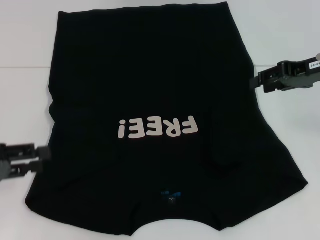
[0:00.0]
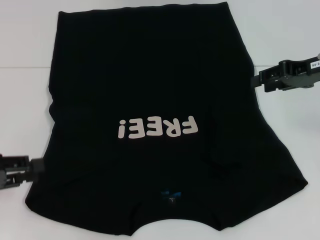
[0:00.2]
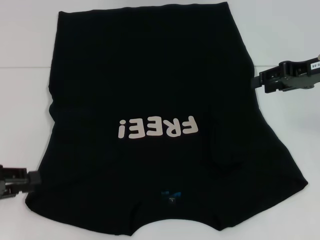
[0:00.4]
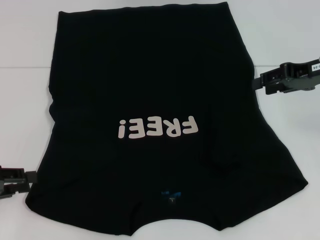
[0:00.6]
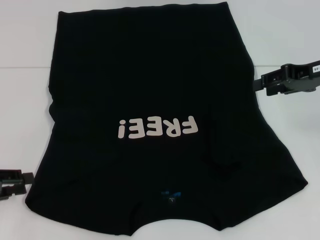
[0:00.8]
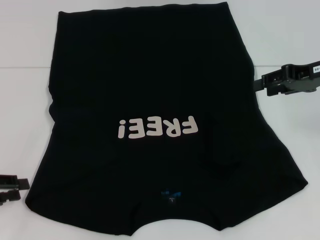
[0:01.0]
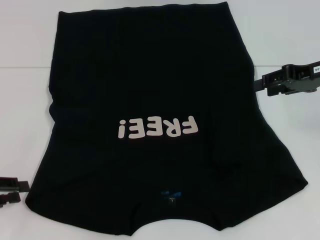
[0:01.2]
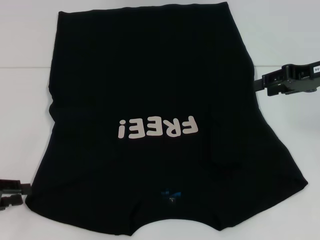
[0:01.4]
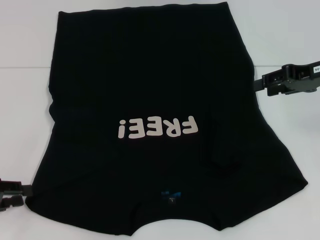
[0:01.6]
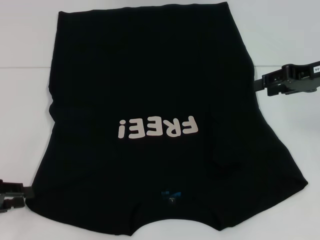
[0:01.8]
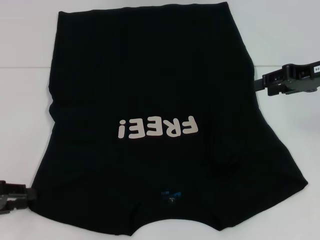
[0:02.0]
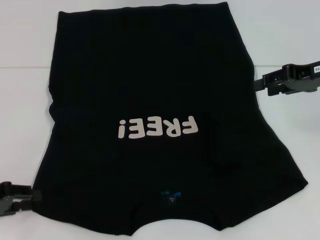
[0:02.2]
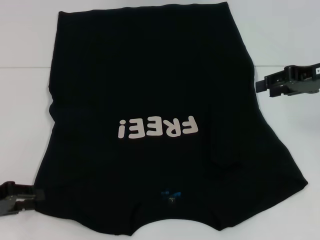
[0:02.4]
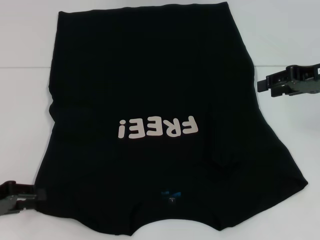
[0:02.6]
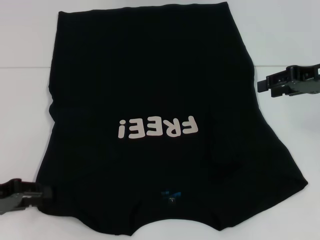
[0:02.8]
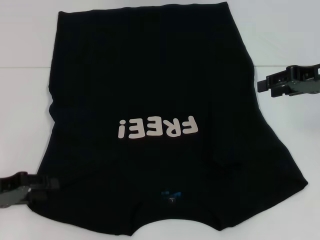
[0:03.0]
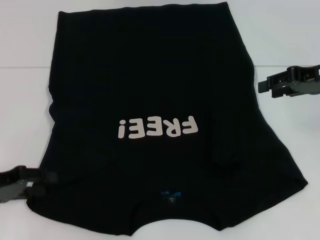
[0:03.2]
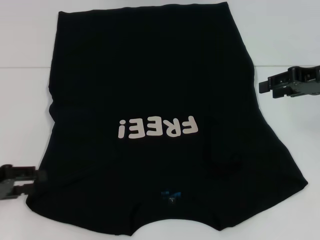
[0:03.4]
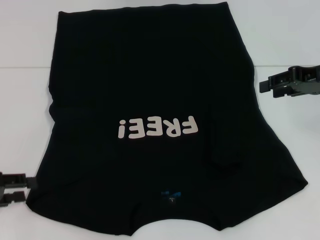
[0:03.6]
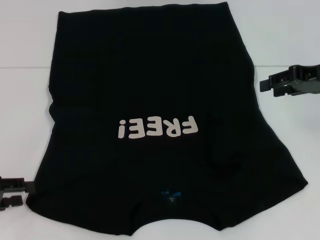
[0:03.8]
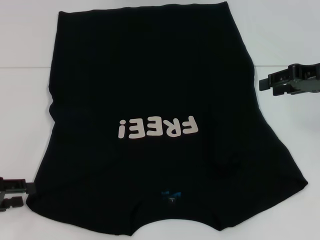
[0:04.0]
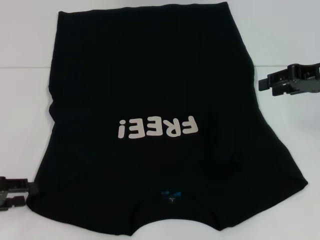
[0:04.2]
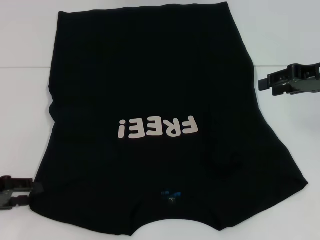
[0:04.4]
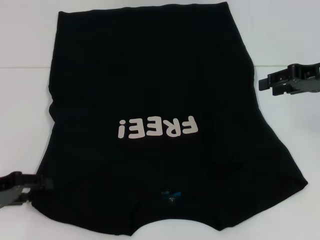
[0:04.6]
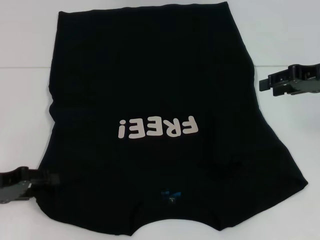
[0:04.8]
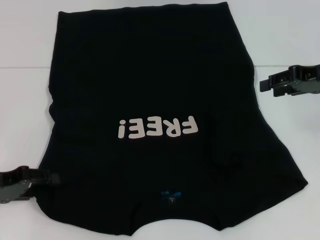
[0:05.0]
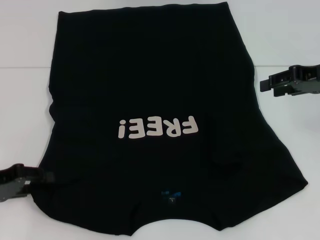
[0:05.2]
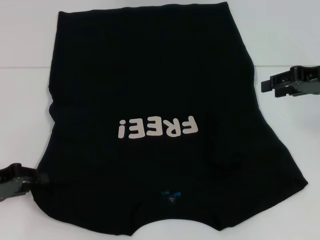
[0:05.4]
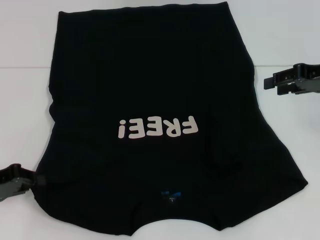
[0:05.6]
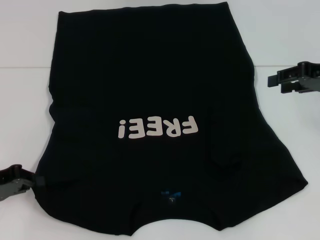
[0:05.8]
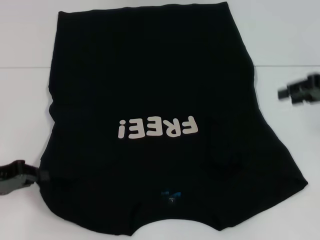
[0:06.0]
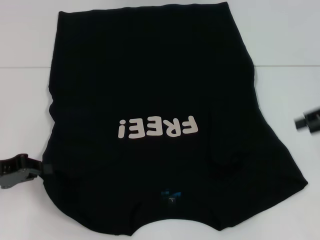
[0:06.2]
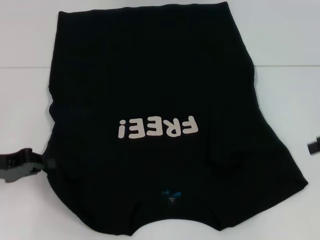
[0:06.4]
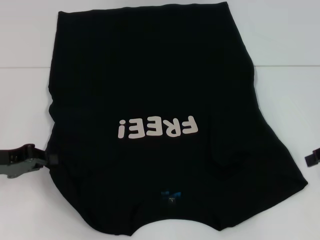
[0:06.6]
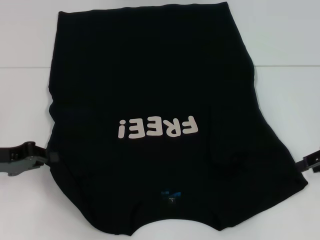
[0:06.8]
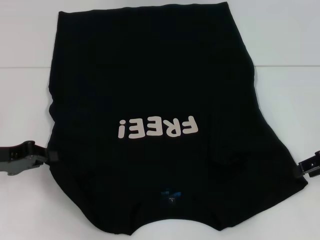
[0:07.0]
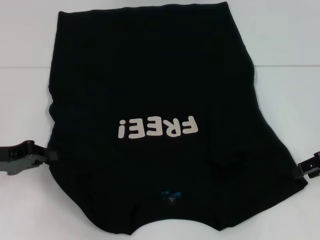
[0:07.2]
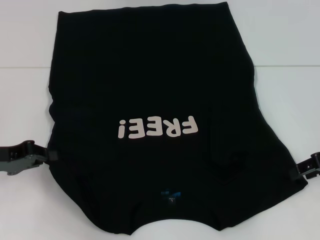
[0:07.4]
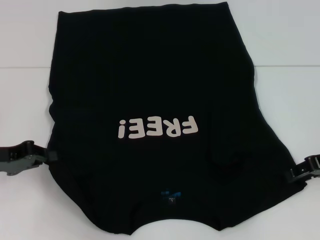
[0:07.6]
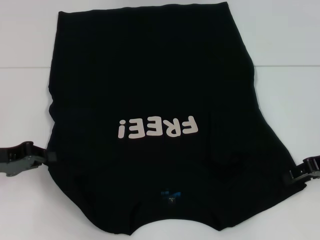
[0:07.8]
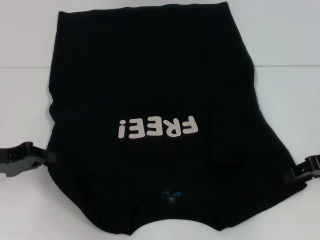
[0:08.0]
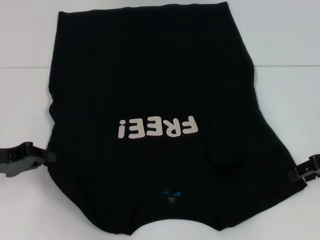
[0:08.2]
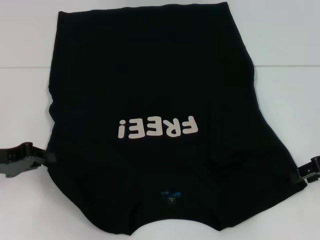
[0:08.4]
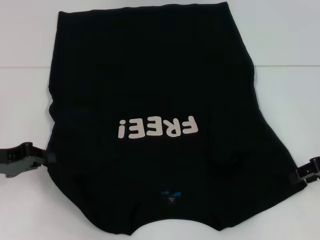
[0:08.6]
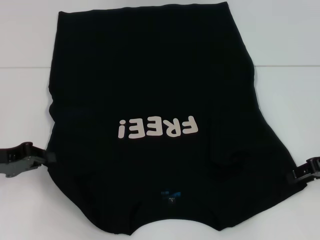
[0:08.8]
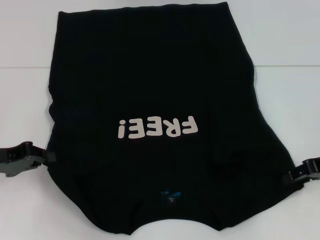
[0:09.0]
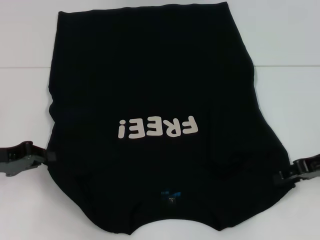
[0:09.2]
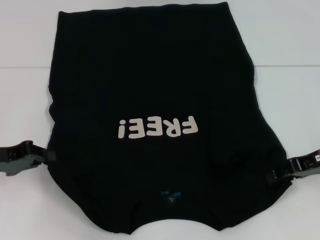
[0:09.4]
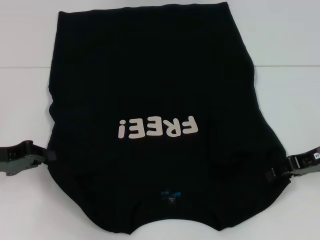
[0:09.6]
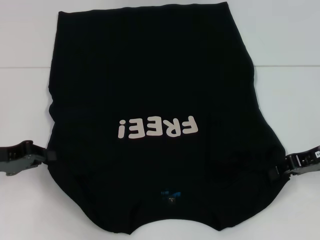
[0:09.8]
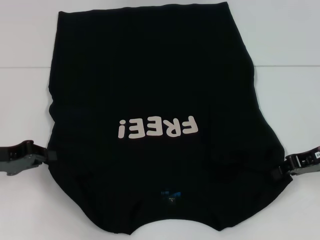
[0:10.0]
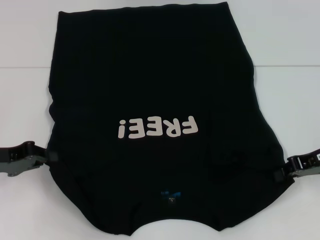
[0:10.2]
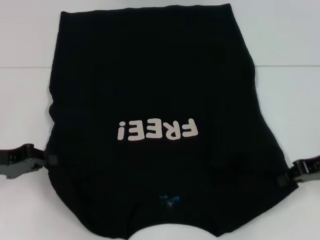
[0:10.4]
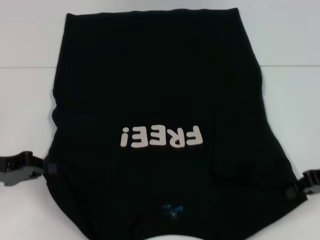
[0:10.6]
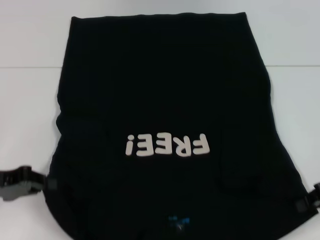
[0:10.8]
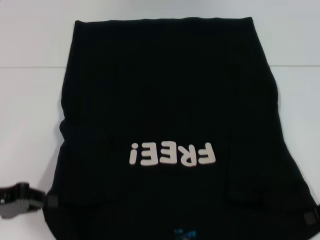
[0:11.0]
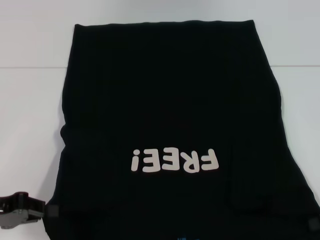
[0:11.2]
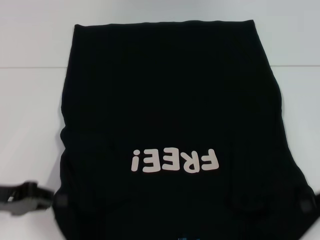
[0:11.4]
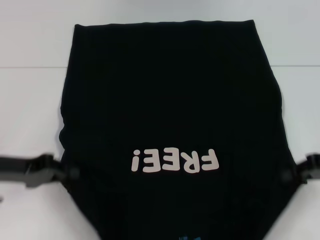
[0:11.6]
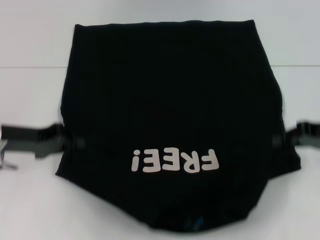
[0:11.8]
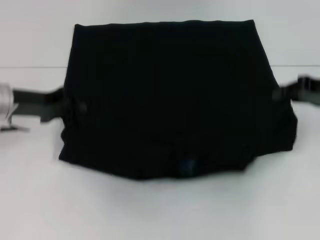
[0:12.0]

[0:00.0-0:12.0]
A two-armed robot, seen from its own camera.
Step, 0:00.0 to 0:06.8: Grab the bottom left corner with your left hand.
Step, 0:07.0 to 0:10.4: Grab the bottom right corner with your right hand.
0:00.0 to 0:01.6: The left gripper shifts by some 5 cm.
0:01.6 to 0:04.4: There are only small adjustments of the grippers.
0:04.4 to 0:06.0: The left gripper closes its fingers.
0:06.0 to 0:07.6: The right gripper is displaced downward by roughly 5 cm.
0:07.6 to 0:09.0: Both grippers stay about where they are.
0:09.0 to 0:10.4: The right gripper closes its fingers.
0:10.4 to 0:12.0: The right gripper shifts by about 5 cm; the left gripper travels forward and to the right by approximately 10 cm.

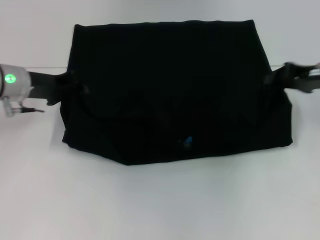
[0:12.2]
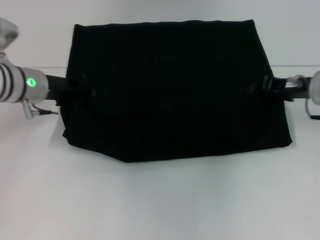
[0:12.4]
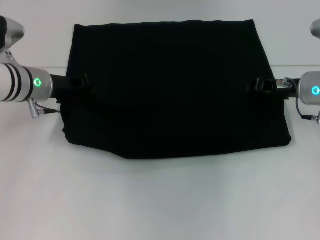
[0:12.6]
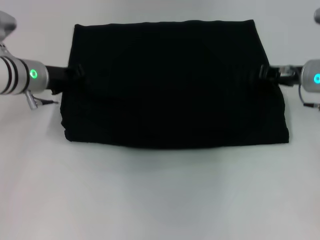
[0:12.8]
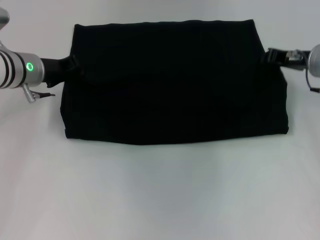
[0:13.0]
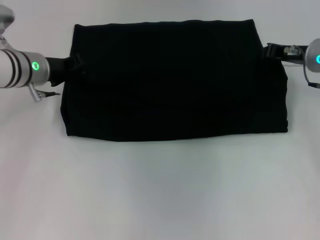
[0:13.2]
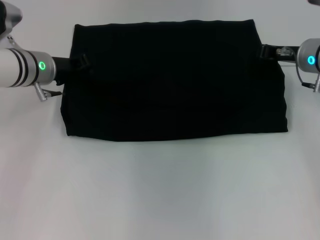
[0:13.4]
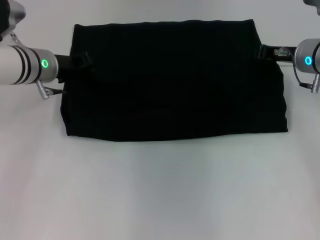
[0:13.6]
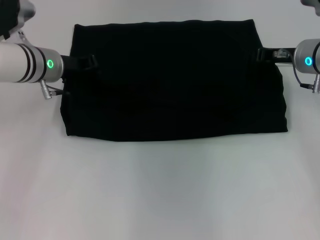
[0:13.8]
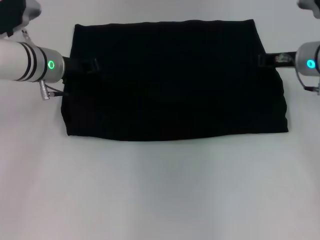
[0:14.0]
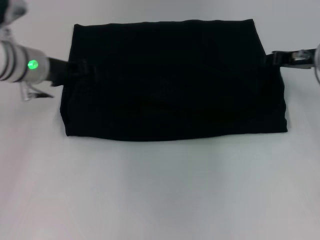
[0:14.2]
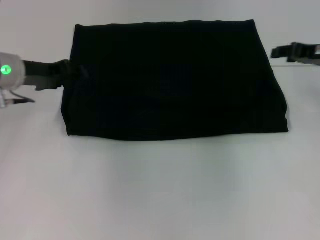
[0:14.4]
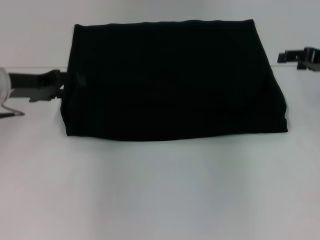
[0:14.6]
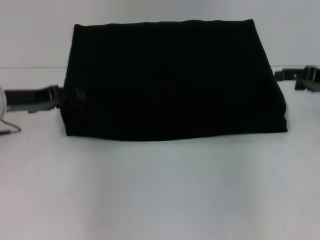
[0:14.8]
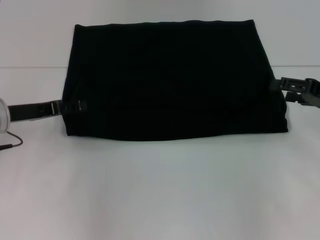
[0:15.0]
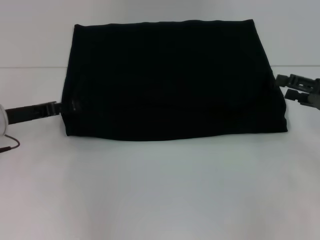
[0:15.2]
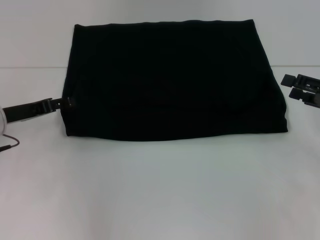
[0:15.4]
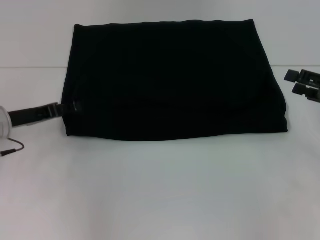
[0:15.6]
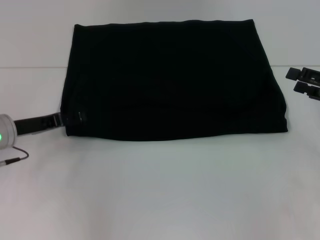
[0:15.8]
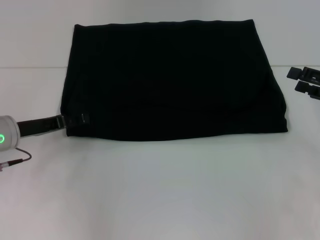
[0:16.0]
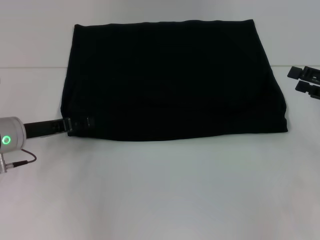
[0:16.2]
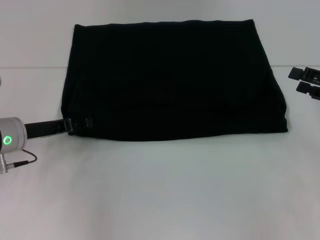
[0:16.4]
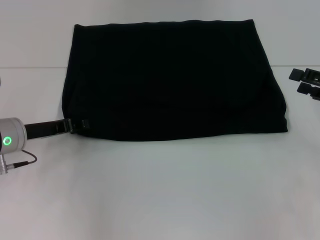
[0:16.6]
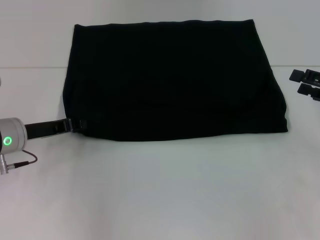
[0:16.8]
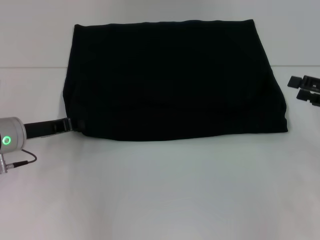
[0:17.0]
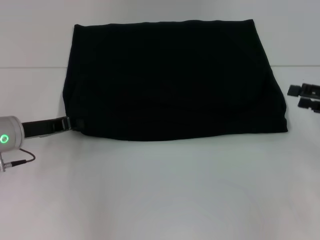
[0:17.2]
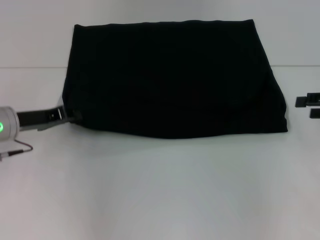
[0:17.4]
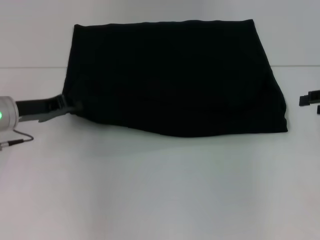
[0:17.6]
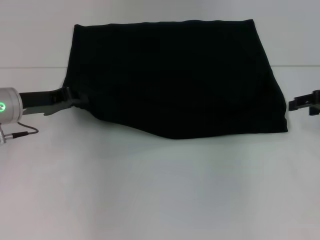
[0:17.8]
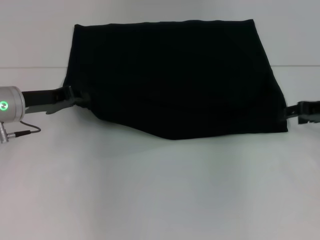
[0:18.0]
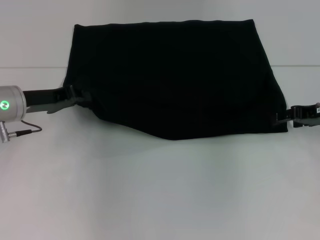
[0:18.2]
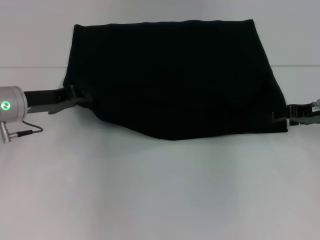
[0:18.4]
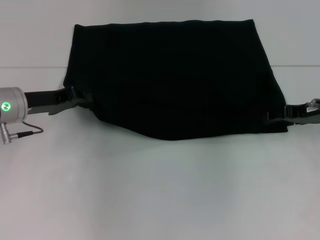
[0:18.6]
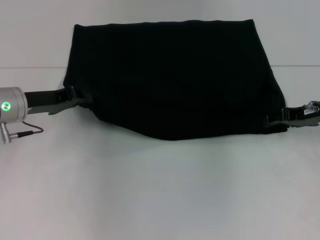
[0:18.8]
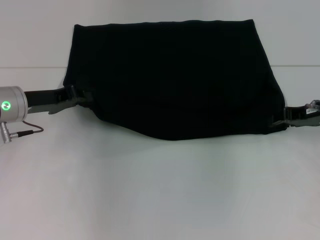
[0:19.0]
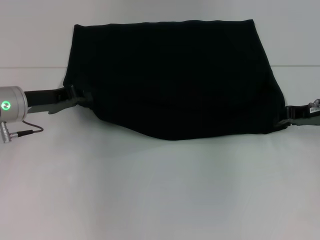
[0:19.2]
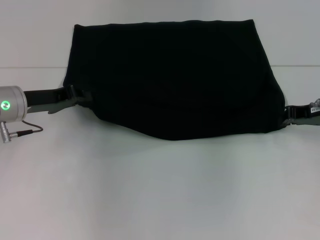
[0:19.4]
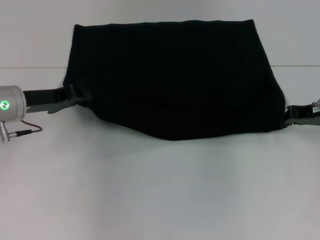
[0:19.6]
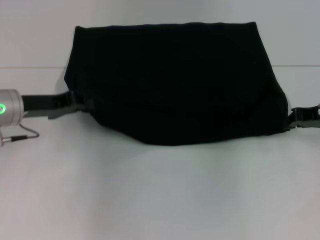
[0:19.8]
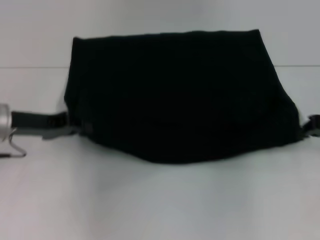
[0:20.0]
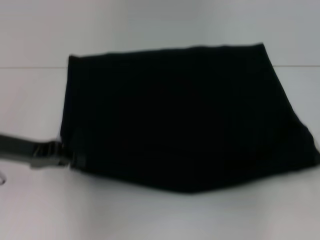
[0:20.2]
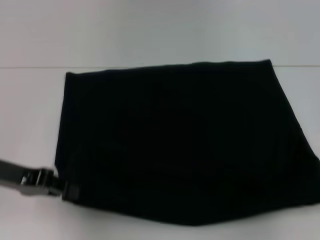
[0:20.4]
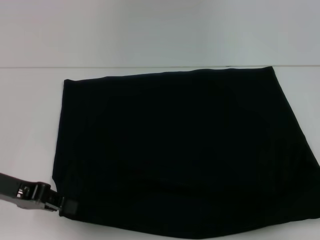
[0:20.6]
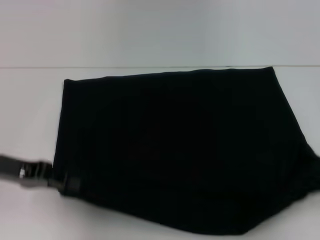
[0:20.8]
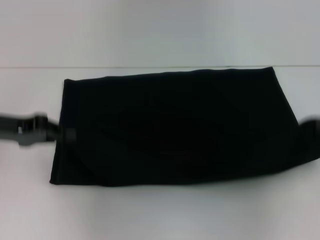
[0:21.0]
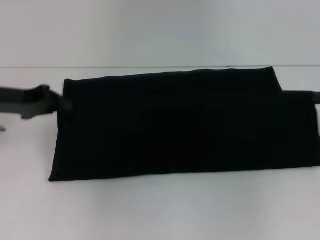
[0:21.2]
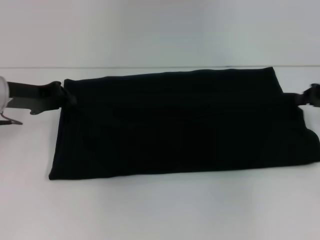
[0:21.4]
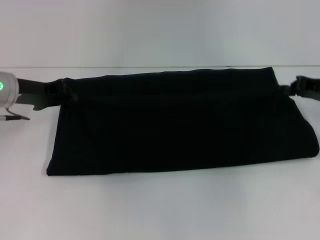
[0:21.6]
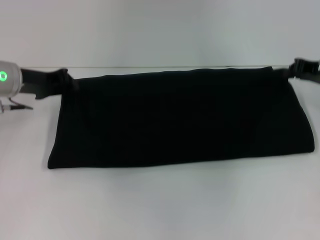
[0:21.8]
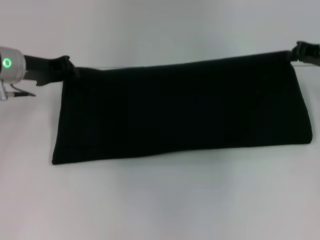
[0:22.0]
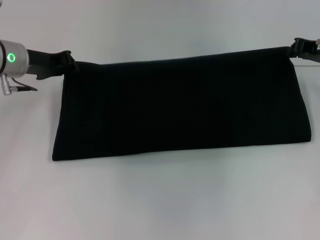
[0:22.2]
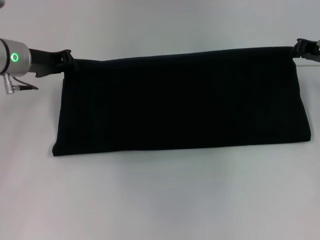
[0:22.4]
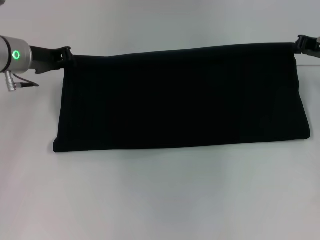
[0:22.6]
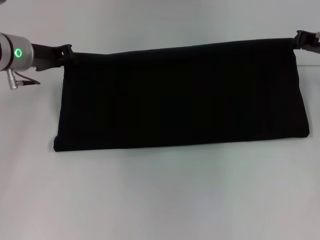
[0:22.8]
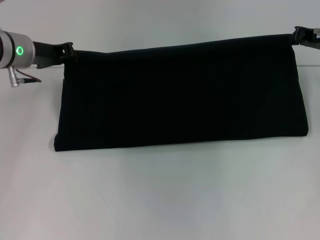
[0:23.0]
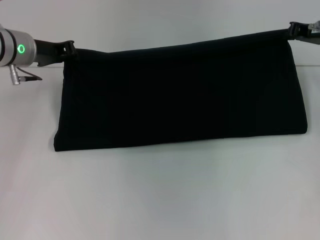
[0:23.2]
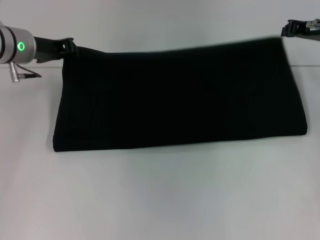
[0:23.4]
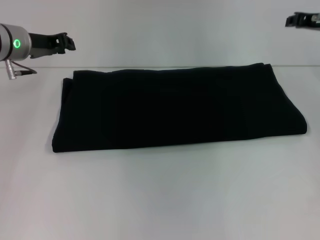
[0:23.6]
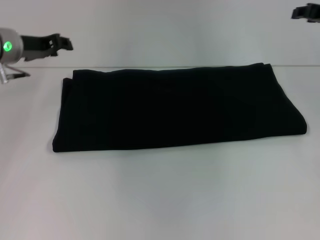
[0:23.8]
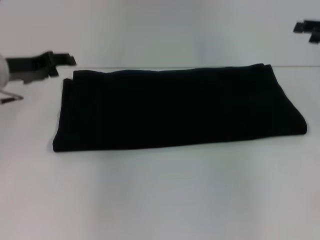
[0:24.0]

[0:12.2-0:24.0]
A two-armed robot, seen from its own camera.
Step, 0:13.8 to 0:20.6: Pull the clothes with your left hand.
Step, 0:13.8 to 0:20.6: Pull the clothes with your right hand.
Step, 0:20.8 to 0:24.0: Fold the clothes with your right hand.
0:12.2 to 0:13.6: The right gripper is displaced to the left and forward by about 10 cm; the left gripper shifts by approximately 5 cm.
0:13.6 to 0:15.2: The right gripper shifts some 15 cm backward and to the right, and opens, while the left gripper moves backward and to the left, approximately 10 cm, and opens up.
0:15.2 to 0:16.6: The left gripper closes its fingers.
0:16.6 to 0:18.2: The left gripper changes place by about 5 cm, and closes. The right gripper moves forward, some 5 cm.
0:18.2 to 0:19.6: The right gripper closes up.
0:19.6 to 0:21.0: The right gripper shifts approximately 10 cm to the right, backward and upward. Meanwhile the left gripper changes place by about 10 cm.
0:21.0 to 0:22.6: The left gripper goes approximately 15 cm forward and to the right, while the right gripper travels forward and to the left by roughly 15 cm.
0:22.6 to 0:24.0: The left gripper moves roughly 5 cm; the right gripper changes place by about 5 cm, and opens its fingers.
